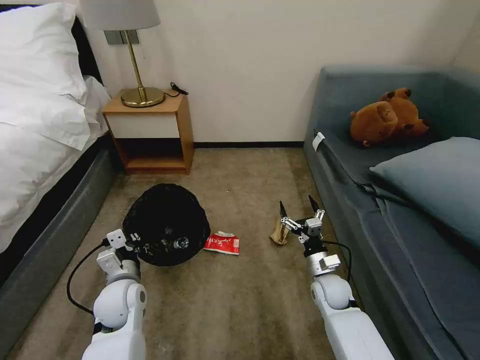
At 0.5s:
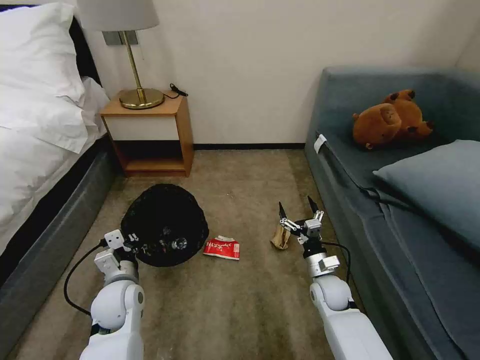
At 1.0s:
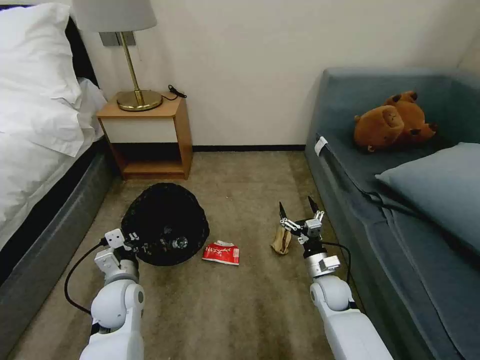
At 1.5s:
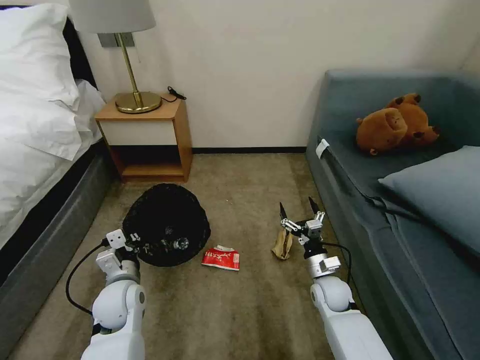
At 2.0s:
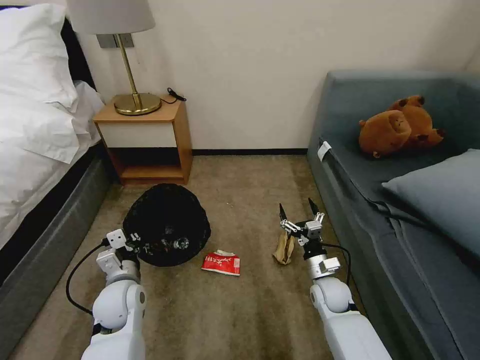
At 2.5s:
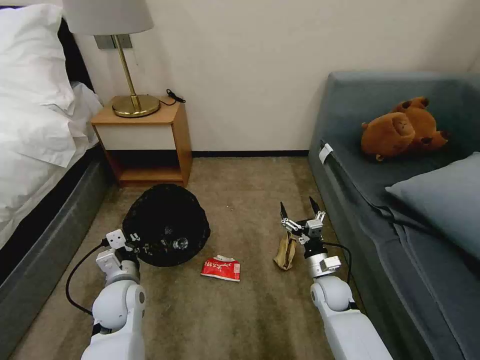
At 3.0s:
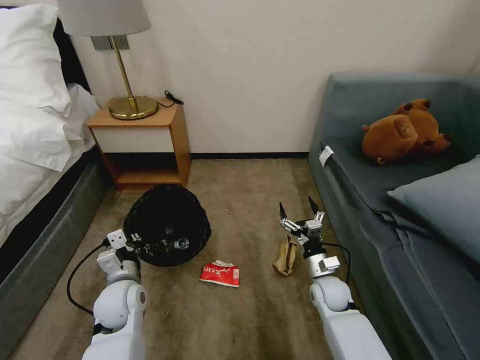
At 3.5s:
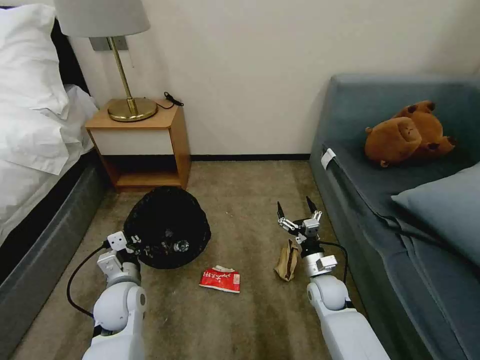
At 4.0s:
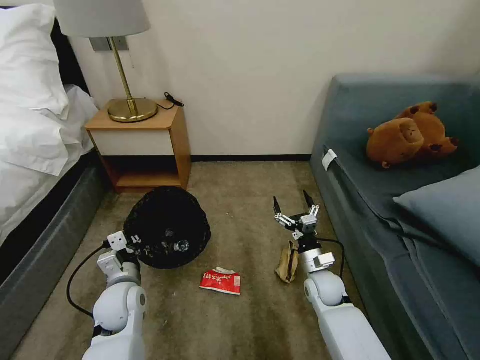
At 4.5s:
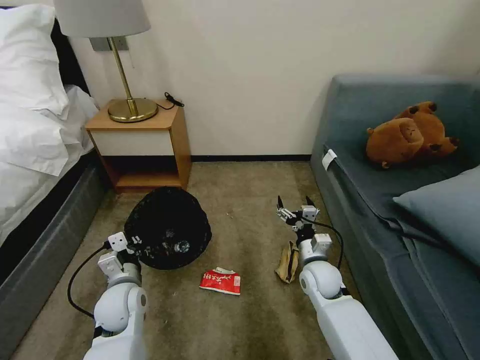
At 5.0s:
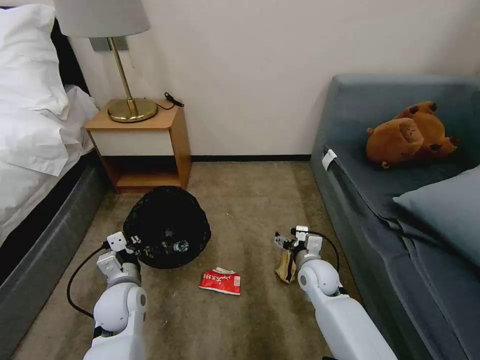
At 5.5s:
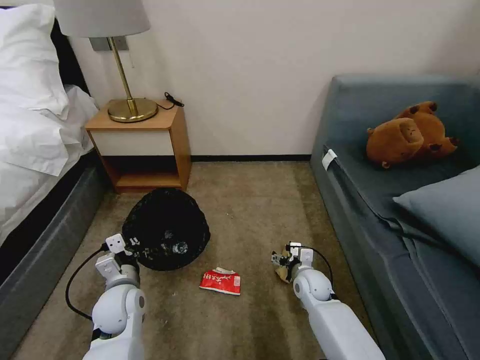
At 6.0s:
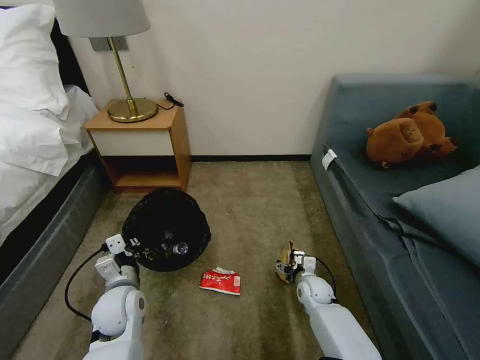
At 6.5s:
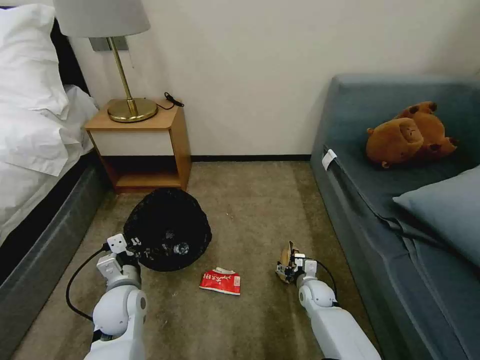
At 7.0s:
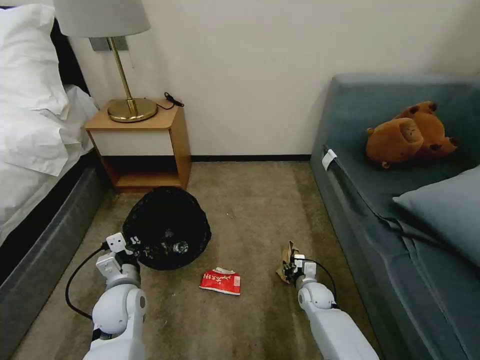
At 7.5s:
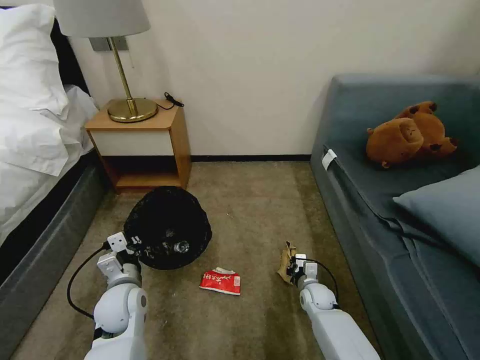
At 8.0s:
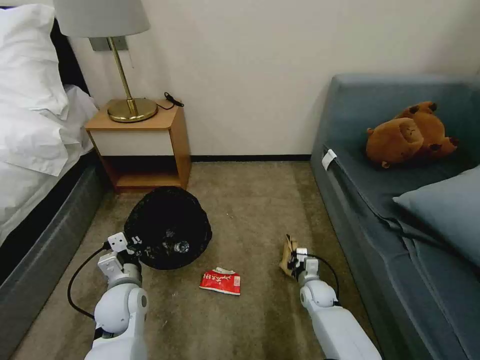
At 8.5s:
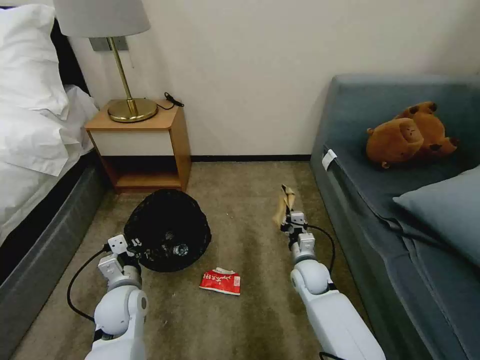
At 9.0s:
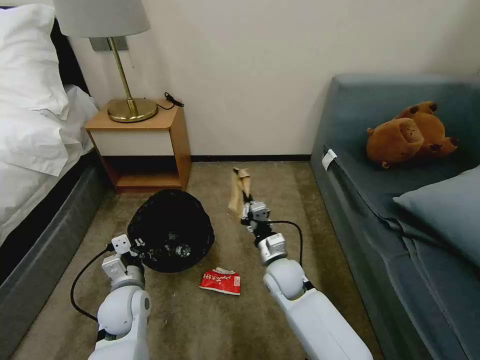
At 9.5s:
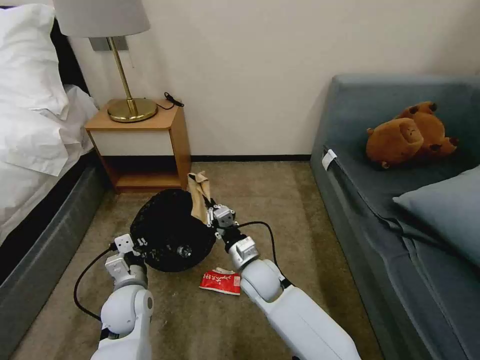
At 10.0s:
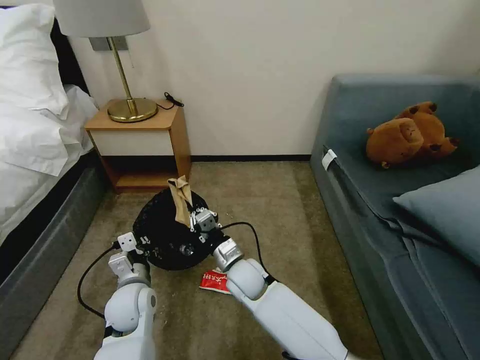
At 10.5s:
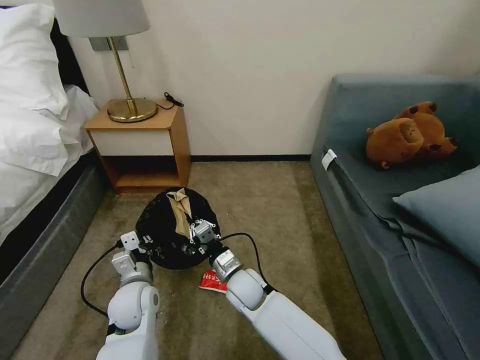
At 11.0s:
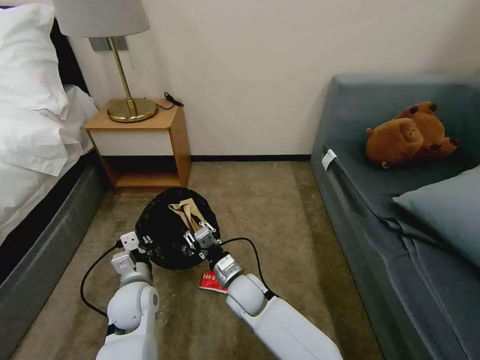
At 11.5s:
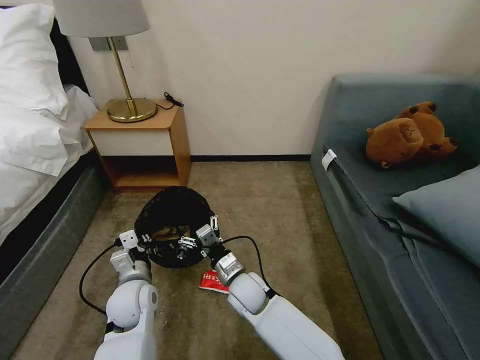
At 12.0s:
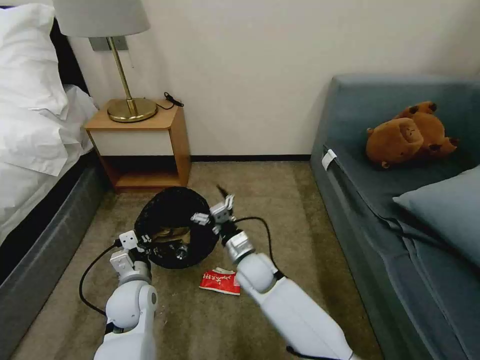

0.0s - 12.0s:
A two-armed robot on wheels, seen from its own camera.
Task of the whole recording: Pick up the trash bin, then pick up the garbage on the floor and place it into the trash bin.
0.0s - 2.0s: The two grippers keep their place.
2.0s - 4.0s: There are only small adjustments of the grippers.
4.0s - 6.0s: The right gripper heads downward, covering roughly 10 cm.
6.0s - 8.0s: The right gripper closes.
8.0s - 10.0s: The right gripper goes roughly 30 cm to the left and upward.
10.0s - 12.0s: The right gripper opens.

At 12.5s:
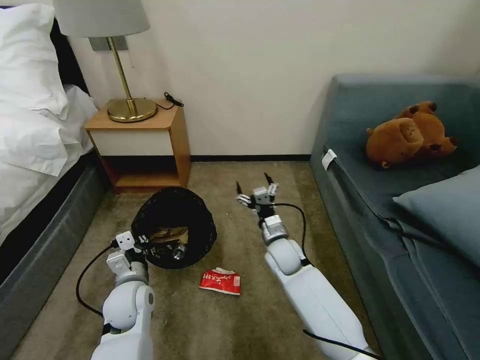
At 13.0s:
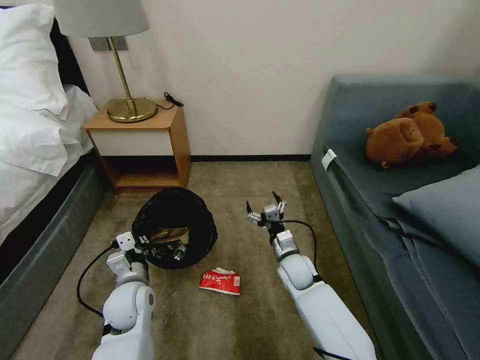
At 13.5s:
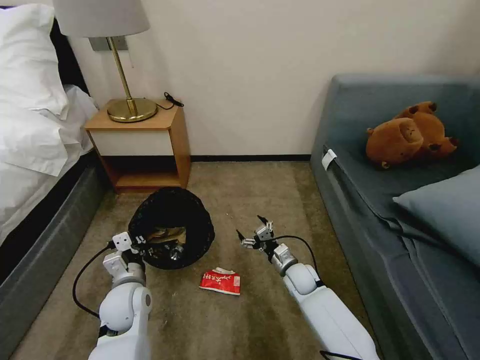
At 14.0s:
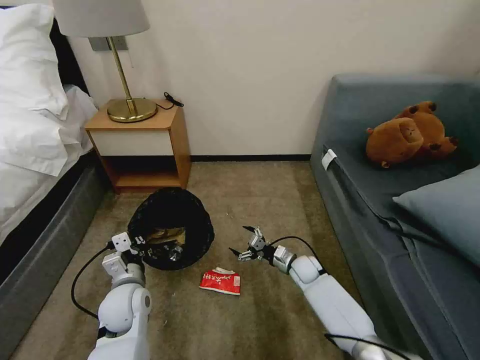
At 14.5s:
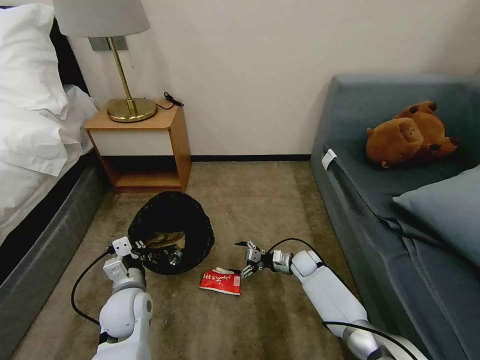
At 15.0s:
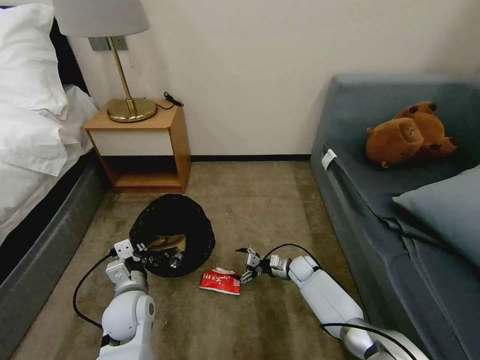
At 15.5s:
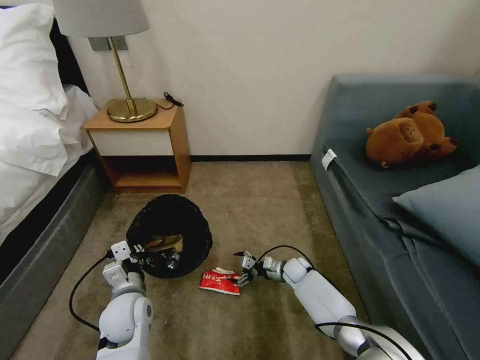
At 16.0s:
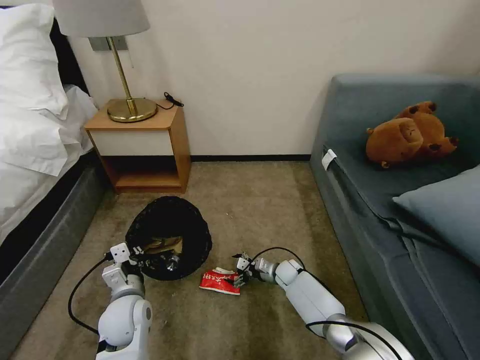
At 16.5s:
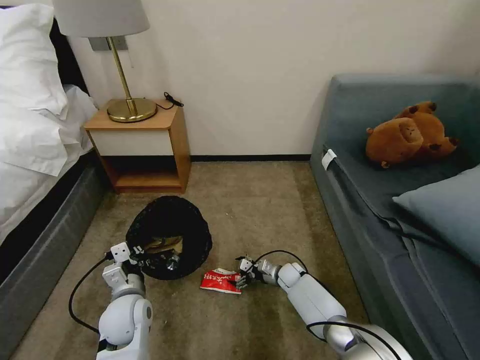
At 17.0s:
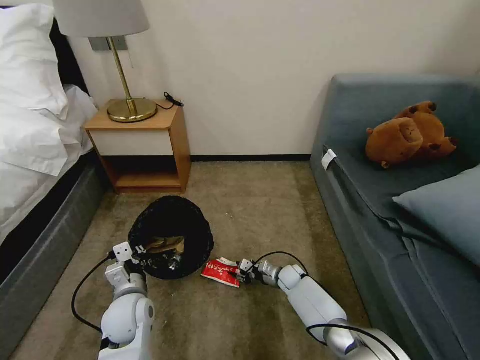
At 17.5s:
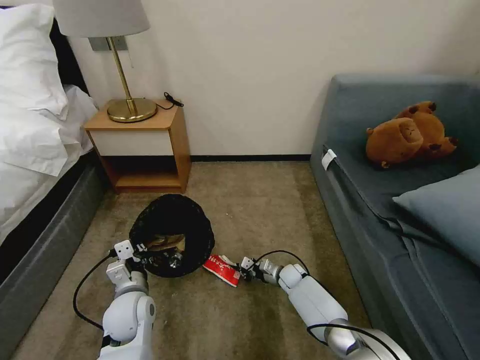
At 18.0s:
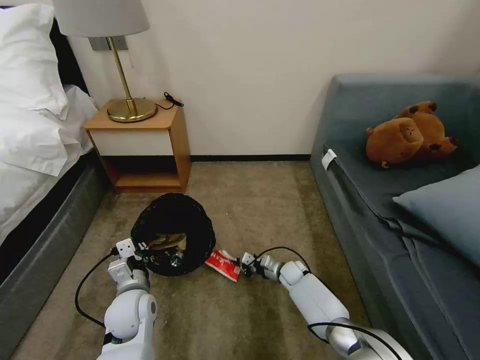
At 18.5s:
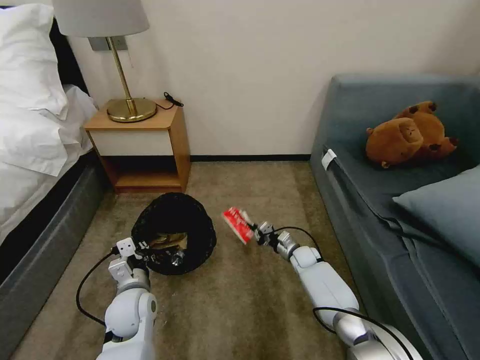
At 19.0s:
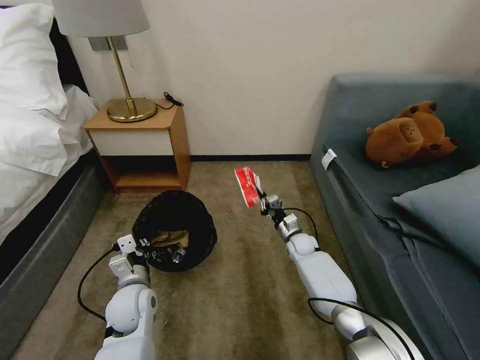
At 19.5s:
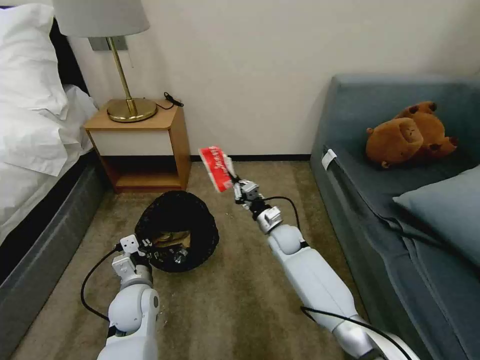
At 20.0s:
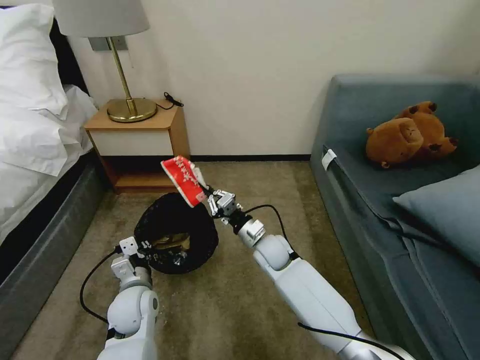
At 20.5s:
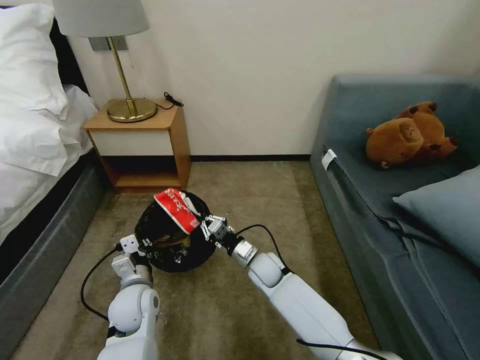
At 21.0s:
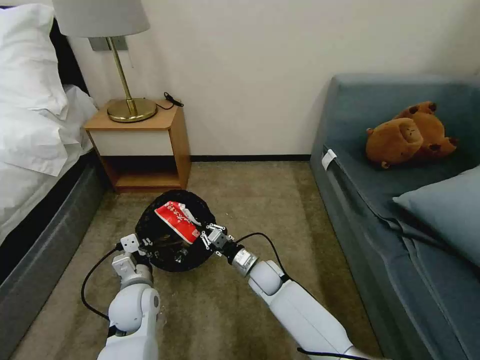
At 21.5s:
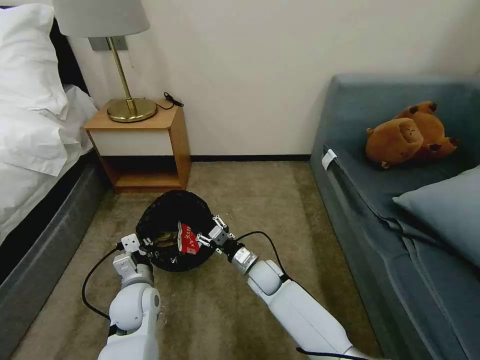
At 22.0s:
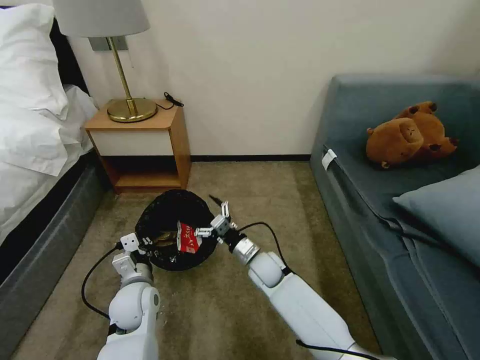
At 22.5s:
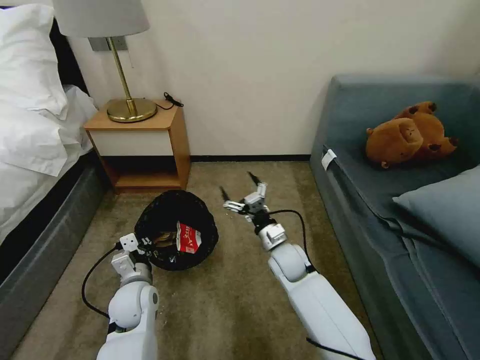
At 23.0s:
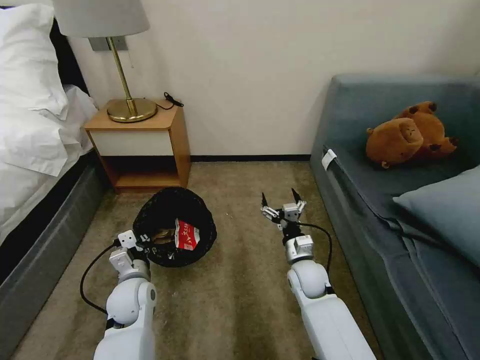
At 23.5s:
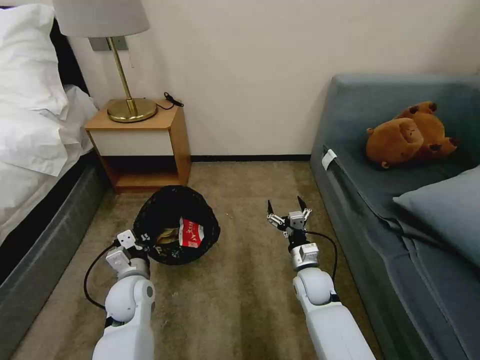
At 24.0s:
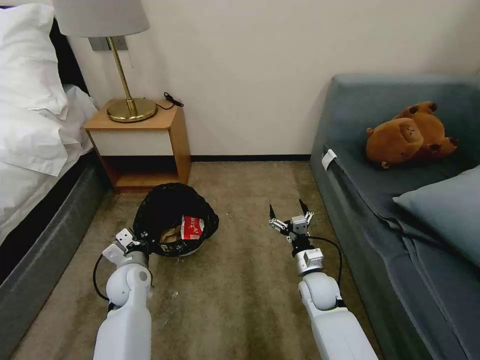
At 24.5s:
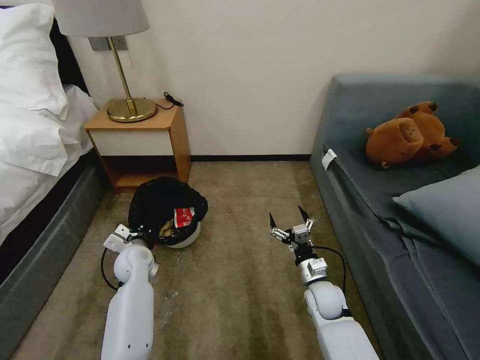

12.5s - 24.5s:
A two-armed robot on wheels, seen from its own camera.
Task of the whole recording: Pick up the trash bin, then pick up the garbage on the floor and place it into the trash bin.
12.5s - 14.5s: The right gripper goes about 15 cm downward and to the right.
14.5s - 16.5s: The right gripper shifts approximately 5 cm downward.
16.5s - 18.5s: The right gripper moves roughly 5 cm, and closes.
18.5s - 20.5s: The right gripper travels to the left, upward and backward by about 20 cm.
20.5s - 22.5s: The right gripper travels upward and to the right by about 10 cm, and opens up.
22.5s - 24.5s: The right gripper is displaced to the right, backward and downward by approximately 15 cm; the left gripper goes approximately 10 cm forward.

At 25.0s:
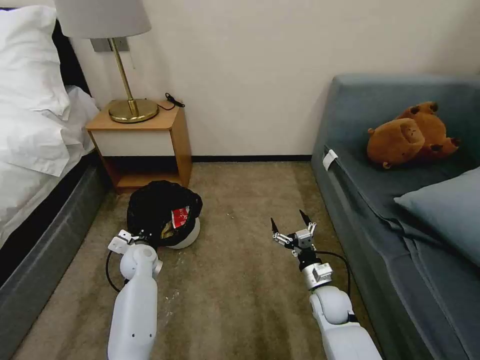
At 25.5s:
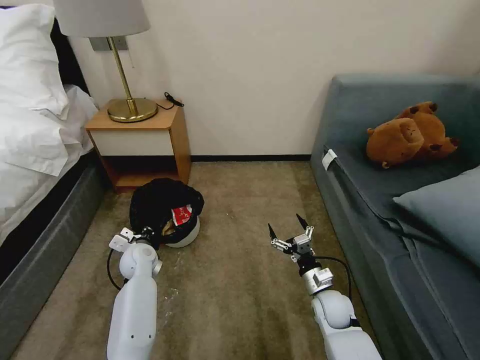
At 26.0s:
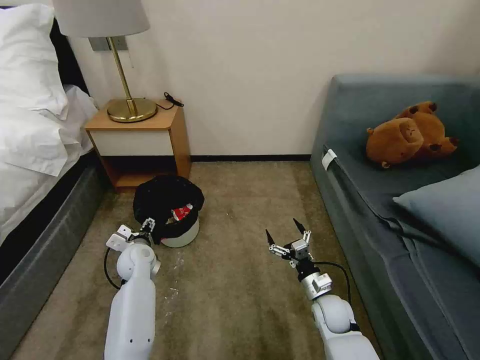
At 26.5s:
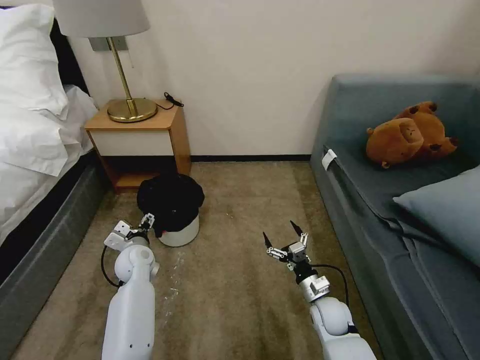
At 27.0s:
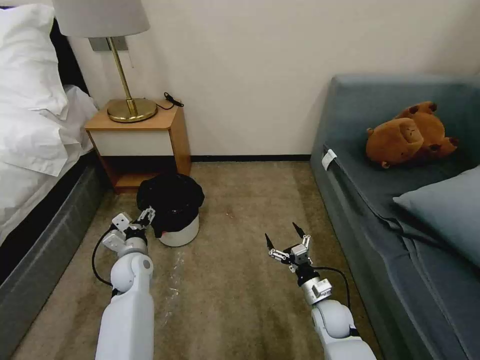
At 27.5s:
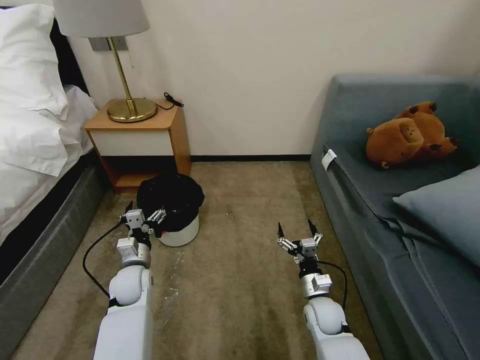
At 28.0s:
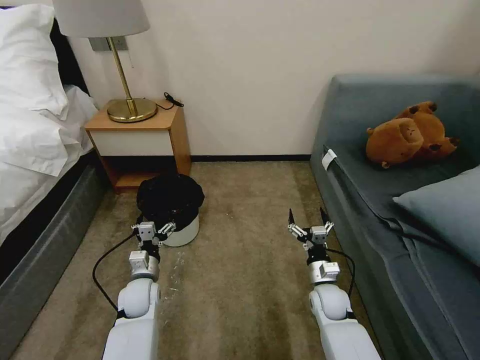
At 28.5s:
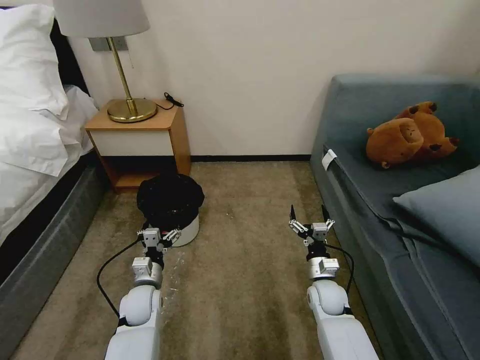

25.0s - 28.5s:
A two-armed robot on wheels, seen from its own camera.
Task of the whole recording: Pick up the trash bin, then pick up the garbage on the floor and place it into the trash bin.
25.0s - 27.0s: The left gripper opens up.
27.0s - 28.5s: The right gripper ends up some 5 cm from where it was. Meanwhile the left gripper heads backward and downward, covering about 10 cm.
